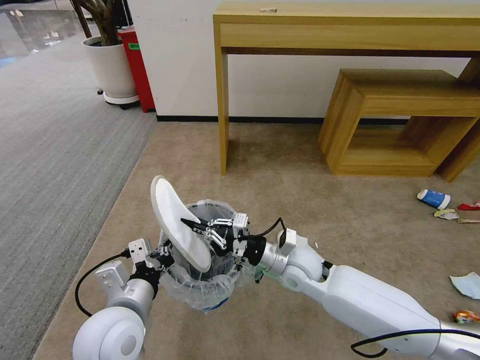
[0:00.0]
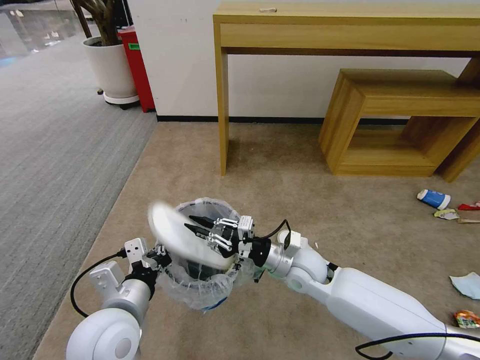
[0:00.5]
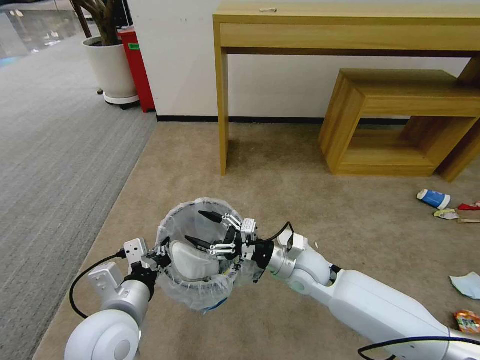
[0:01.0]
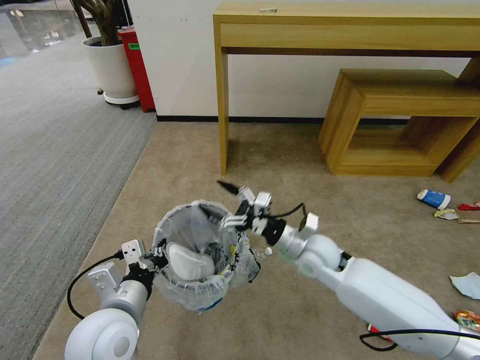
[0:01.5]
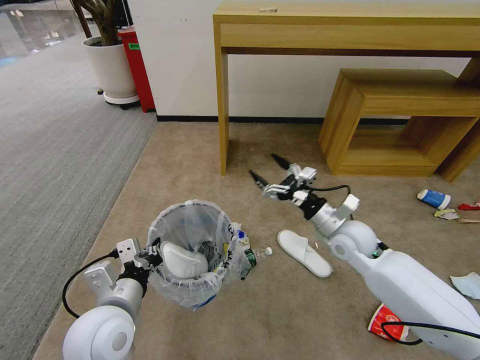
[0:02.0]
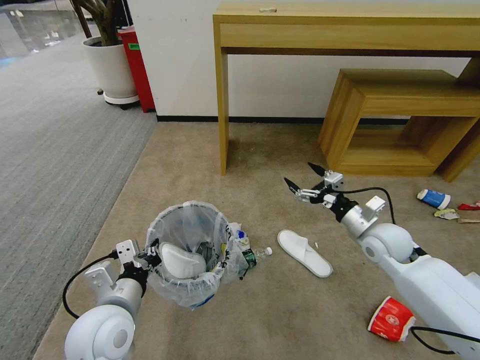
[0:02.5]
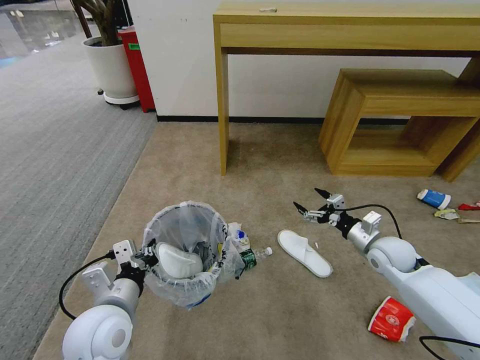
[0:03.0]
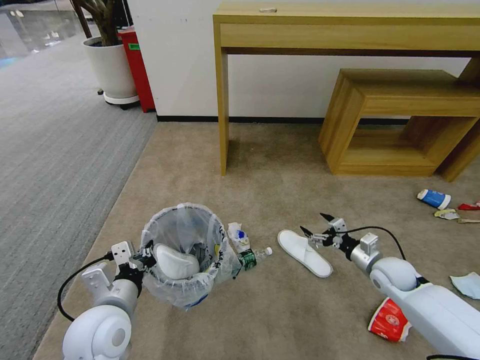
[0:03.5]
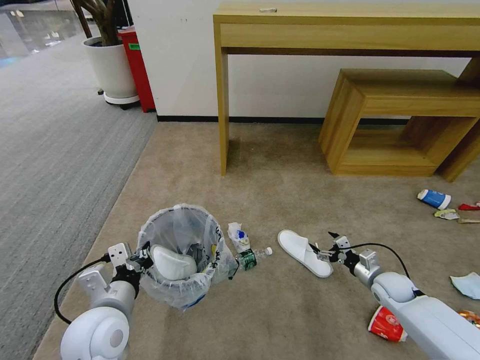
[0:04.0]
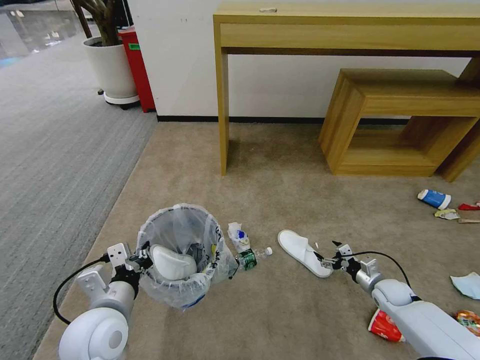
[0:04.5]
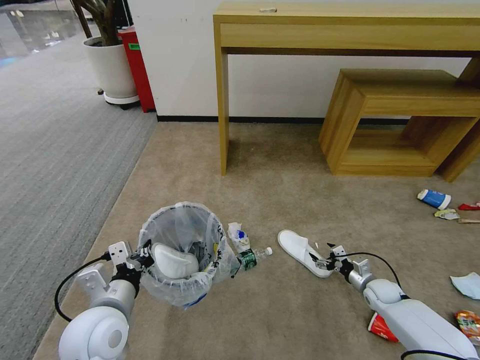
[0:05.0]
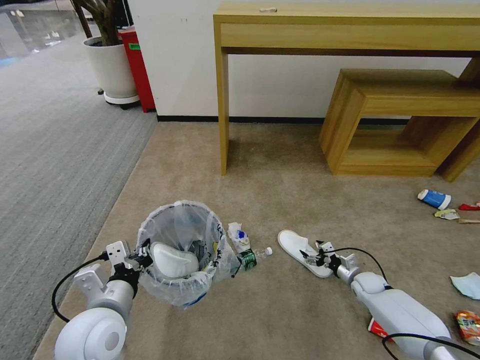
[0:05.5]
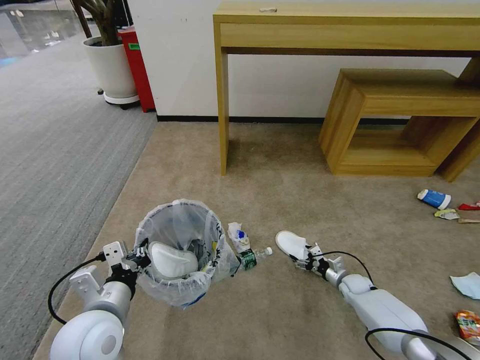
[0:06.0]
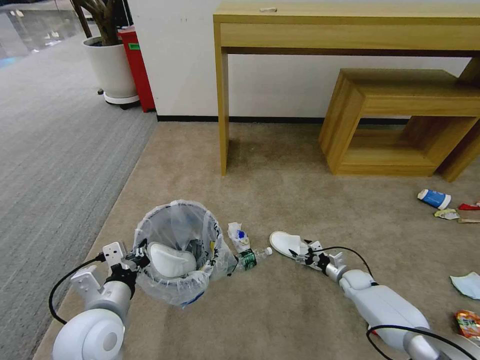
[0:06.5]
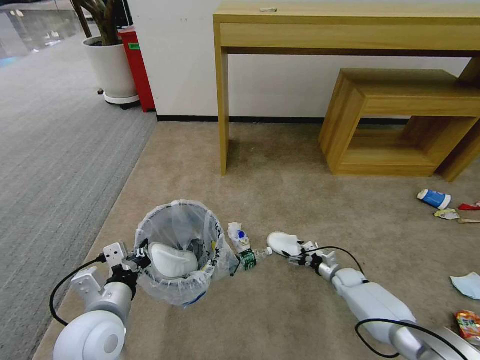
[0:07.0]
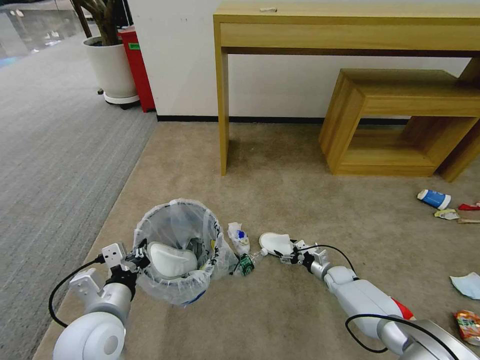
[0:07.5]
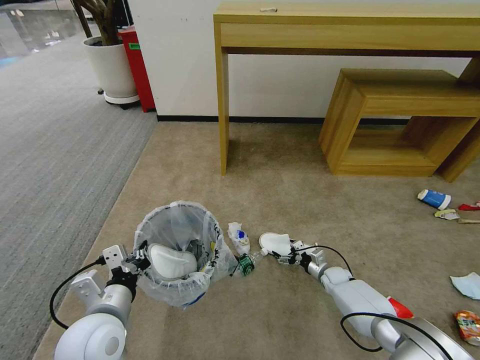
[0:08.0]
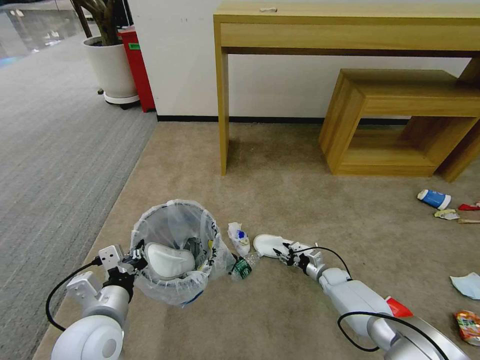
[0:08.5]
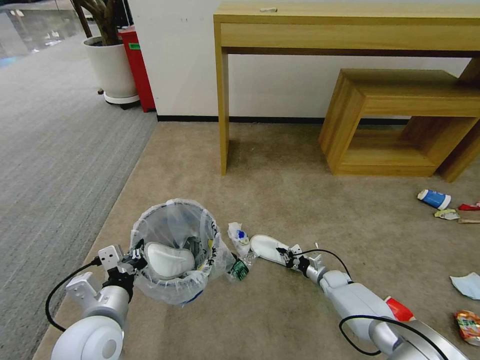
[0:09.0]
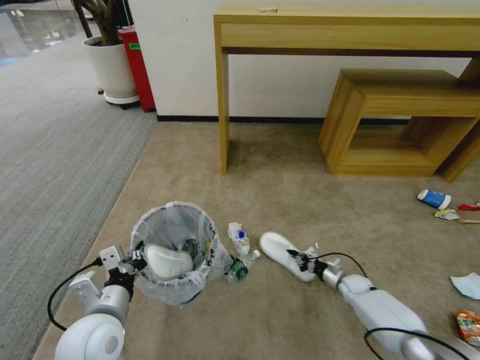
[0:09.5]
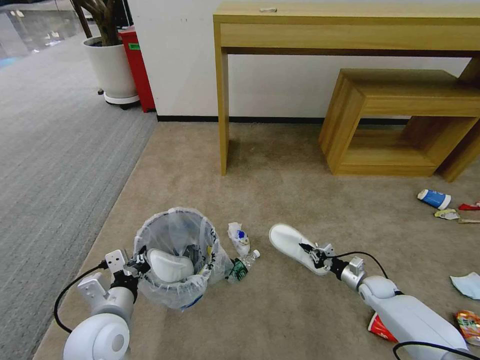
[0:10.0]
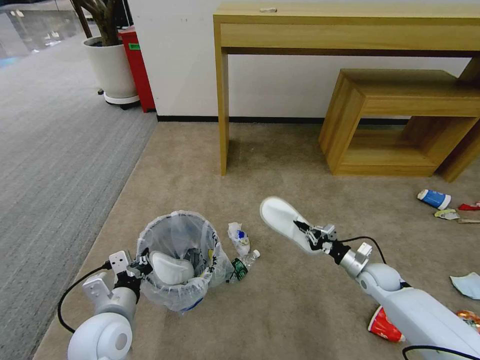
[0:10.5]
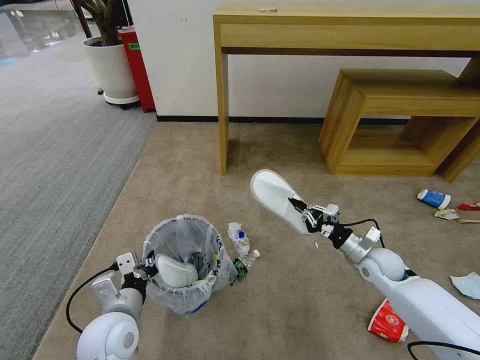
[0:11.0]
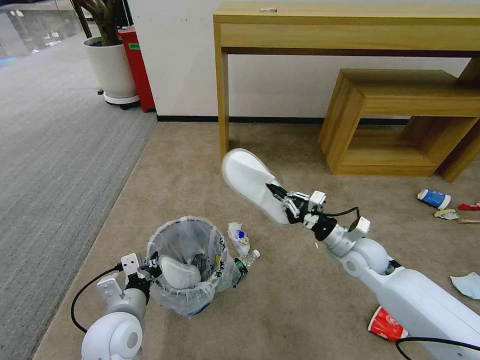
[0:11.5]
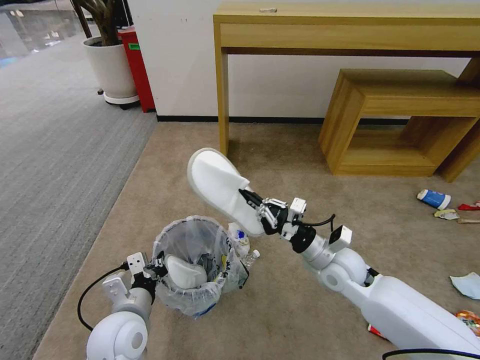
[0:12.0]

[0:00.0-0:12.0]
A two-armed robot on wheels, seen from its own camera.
Task of the whole recording: Pick up the trash bin and place the garbage on the floor into it.
0:00.0 to 0:02.0: The right gripper goes roughly 15 cm to the right, and opens.
0:02.0 to 0:04.0: The right gripper travels downward and to the right by approximately 25 cm.
0:04.0 to 0:06.0: The right gripper moves downward, some 10 cm.
0:06.0 to 0:08.0: The right gripper moves about 5 cm.
0:08.0 to 0:10.0: The right gripper travels to the right, backward and upward by approximately 10 cm, and closes its fingers.
0:10.0 to 0:12.0: The right gripper is displaced upward and to the left by roughly 30 cm.

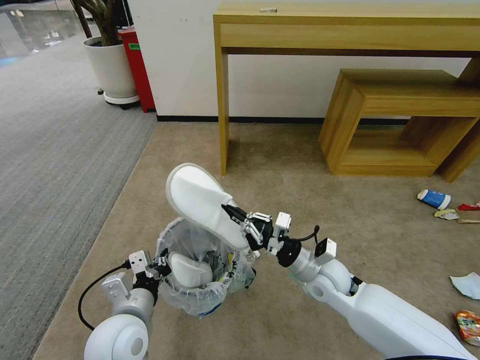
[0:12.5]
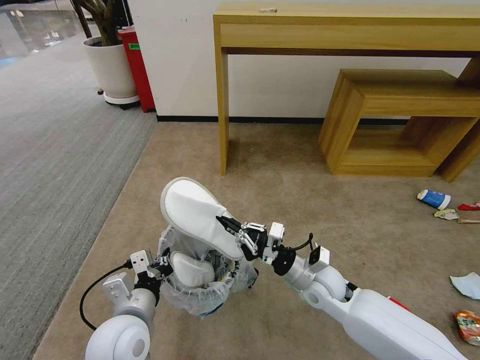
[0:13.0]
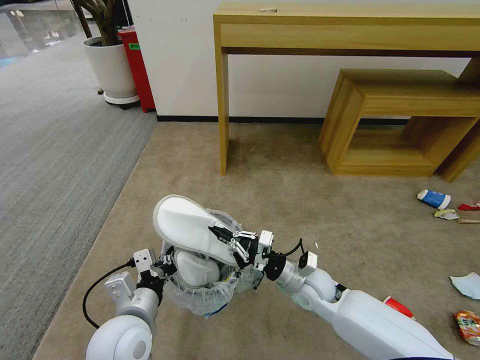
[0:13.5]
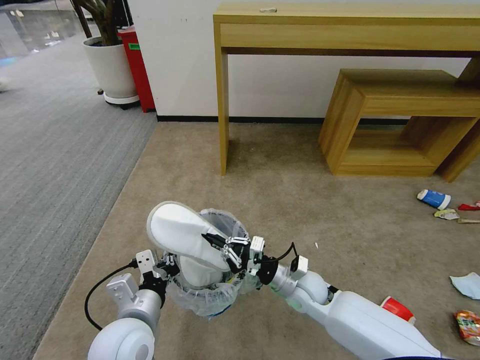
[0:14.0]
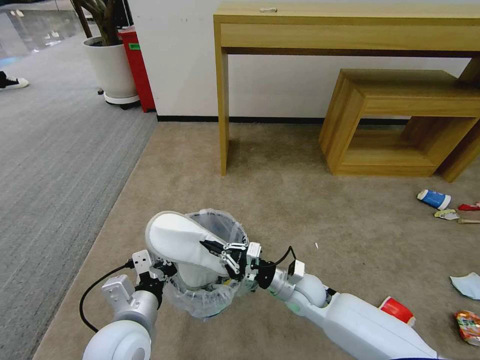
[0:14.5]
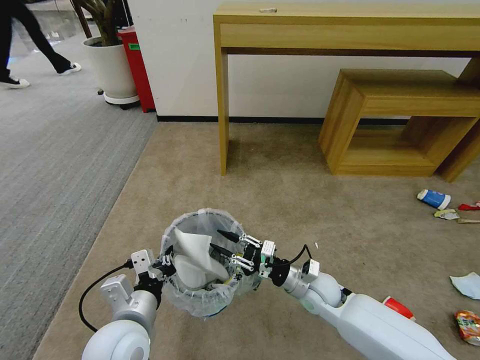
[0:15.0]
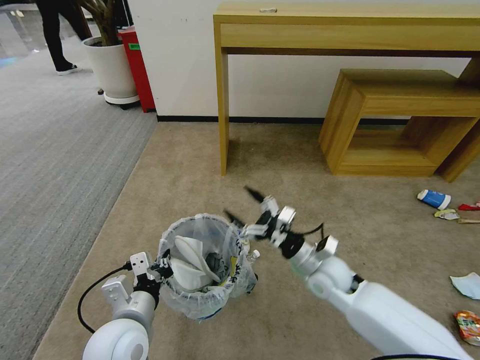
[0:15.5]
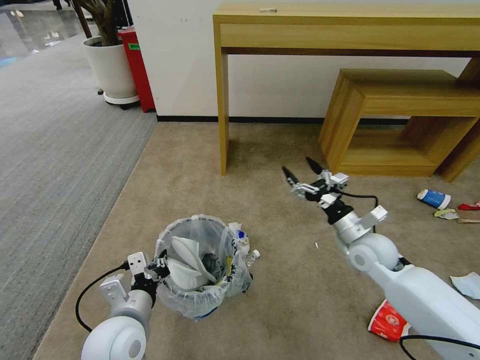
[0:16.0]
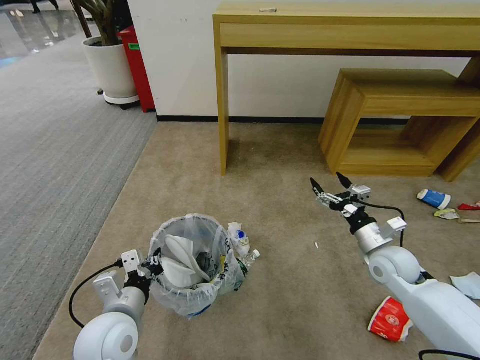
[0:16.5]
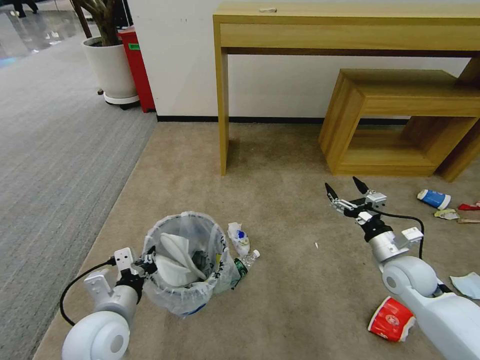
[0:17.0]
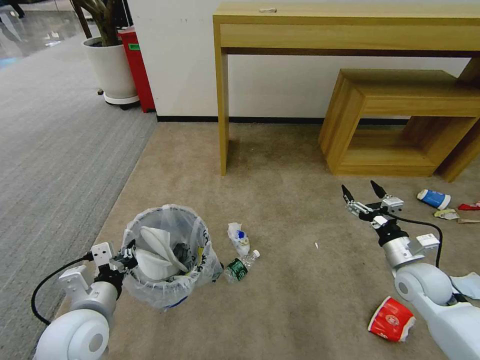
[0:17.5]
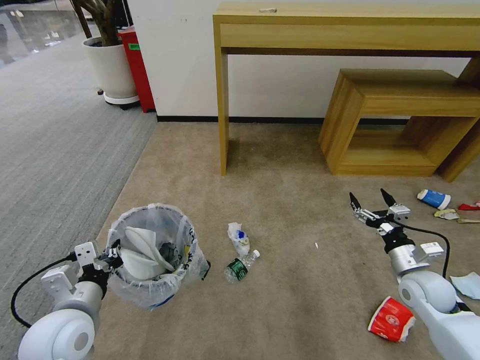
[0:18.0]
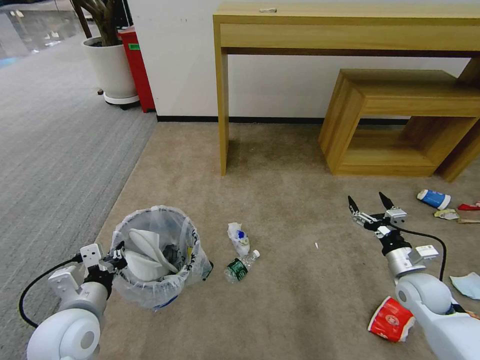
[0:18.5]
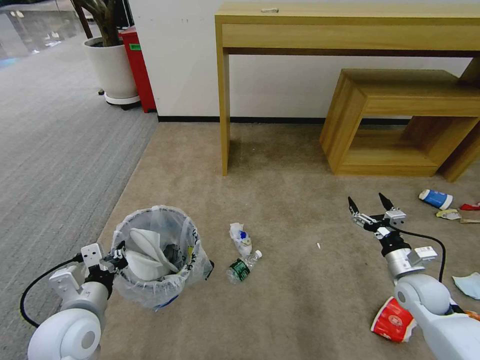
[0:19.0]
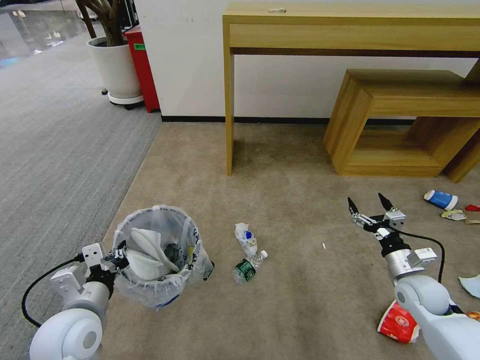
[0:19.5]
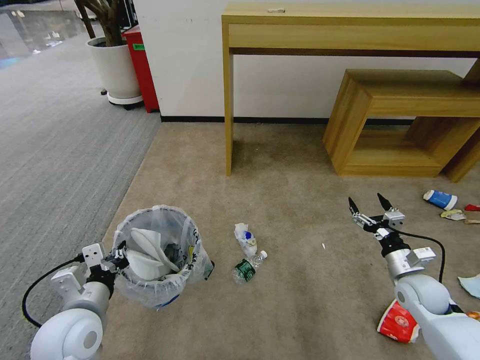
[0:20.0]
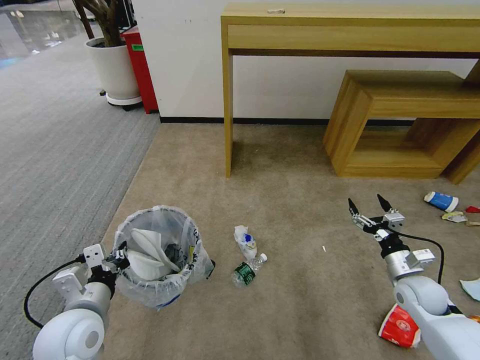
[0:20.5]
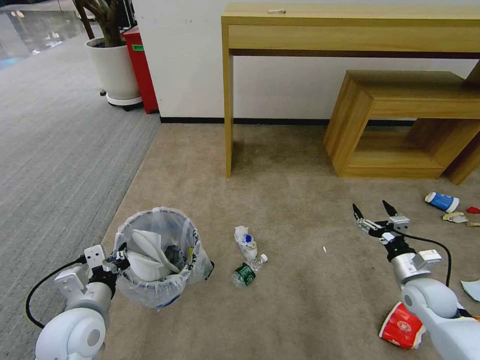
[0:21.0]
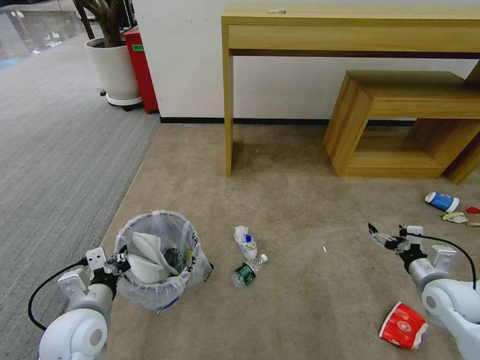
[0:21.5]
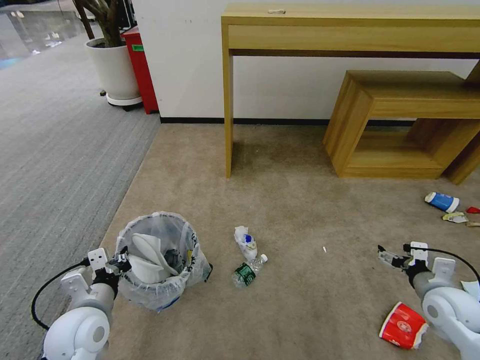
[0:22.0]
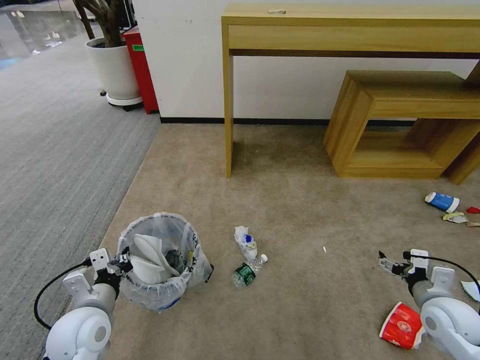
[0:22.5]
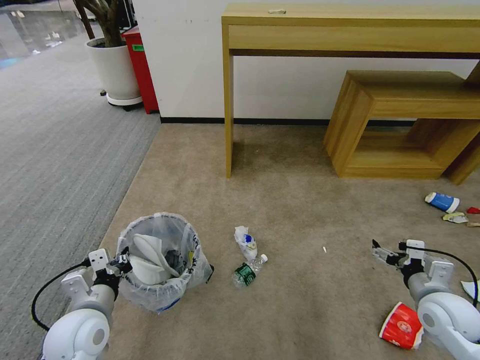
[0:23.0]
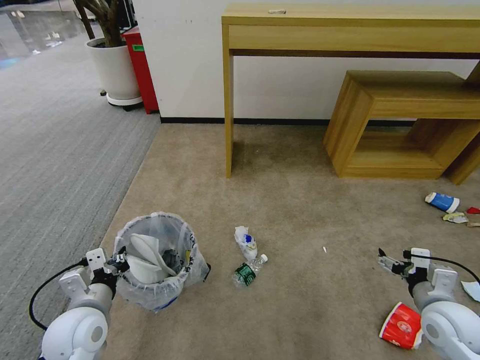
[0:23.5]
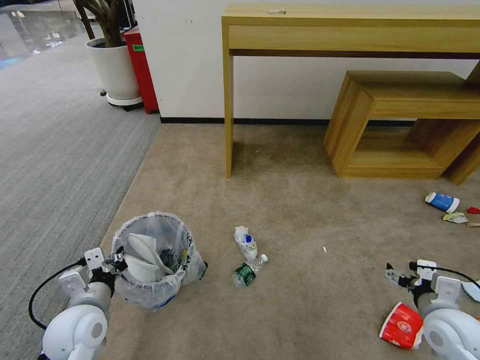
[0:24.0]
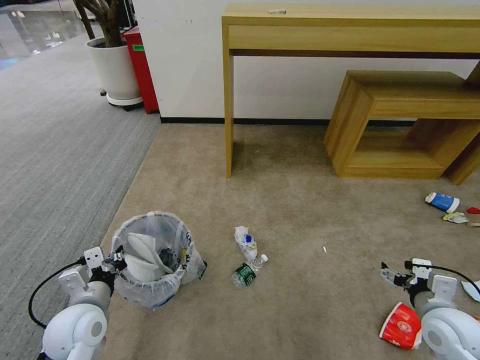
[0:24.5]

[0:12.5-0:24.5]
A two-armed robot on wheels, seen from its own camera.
Task of the whole recording: Pick up the trash bin and place the garbage on the floor into it.
0:12.5 to 0:14.5: The right gripper heads downward, covering some 10 cm.
0:14.5 to 0:16.5: The right gripper is displaced to the right and upward by some 20 cm, and opens up.
0:16.5 to 0:18.5: The right gripper heads to the right, covering roughly 5 cm; the left gripper is displaced to the left by roughly 5 cm.
0:18.5 to 0:20.5: The grippers make only small movements.
0:20.5 to 0:22.5: The right gripper goes roughly 5 cm backward.
0:22.5 to 0:24.5: The grippers make only small movements.

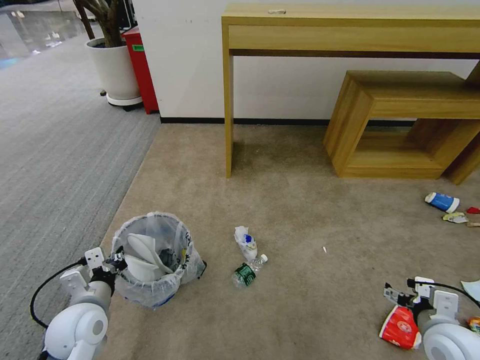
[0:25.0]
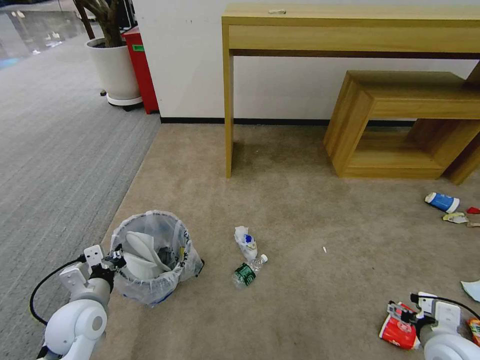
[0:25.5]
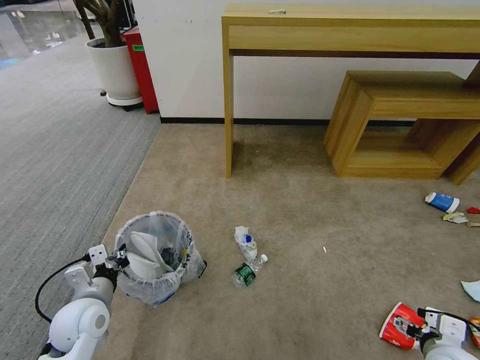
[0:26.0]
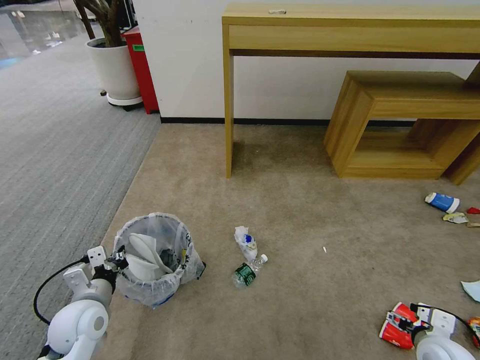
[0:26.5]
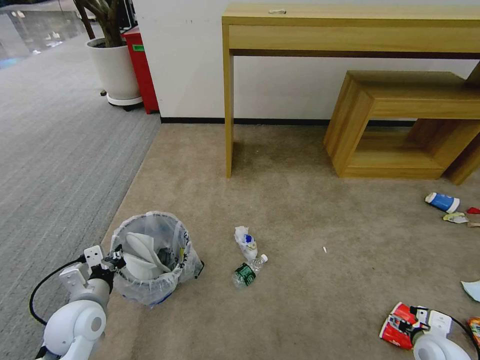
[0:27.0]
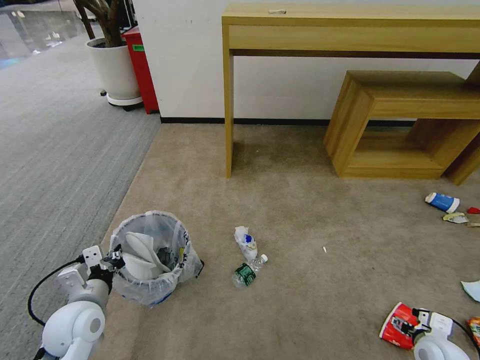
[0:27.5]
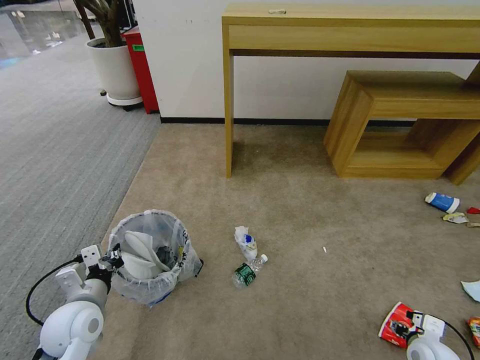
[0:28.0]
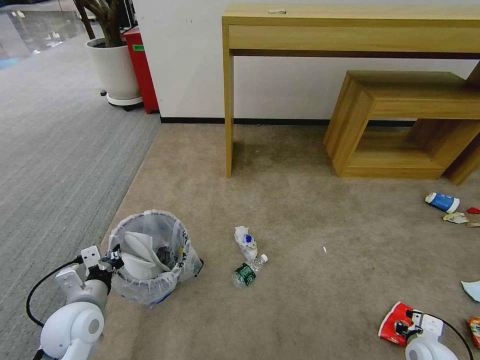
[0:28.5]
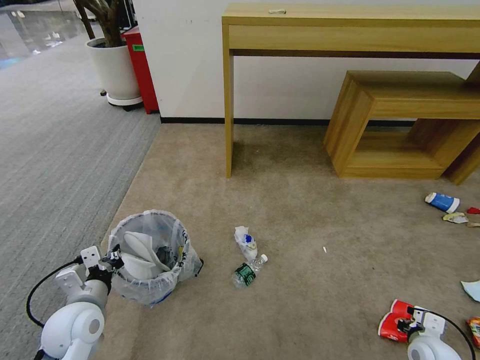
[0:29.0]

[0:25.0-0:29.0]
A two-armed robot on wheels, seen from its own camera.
Task of the whole recording: Pick up the trash bin and place the garbage on the floor into it.
0:25.0 to 0:27.0: The right gripper goes roughly 10 cm downward.
0:27.0 to 0:29.0: The right gripper closes.
